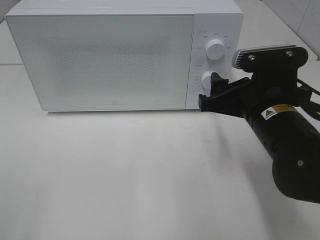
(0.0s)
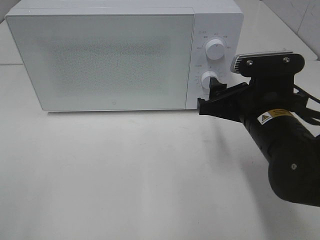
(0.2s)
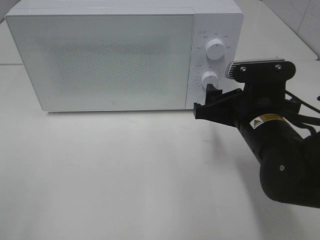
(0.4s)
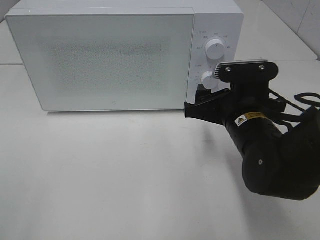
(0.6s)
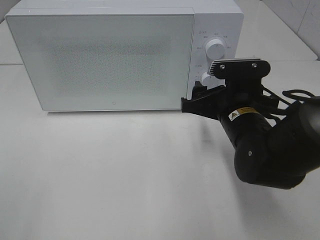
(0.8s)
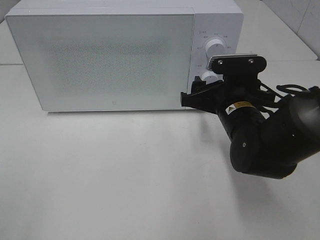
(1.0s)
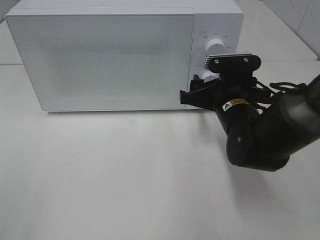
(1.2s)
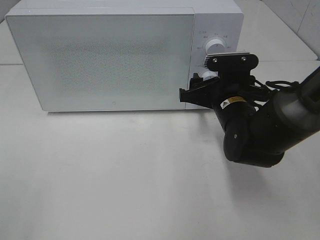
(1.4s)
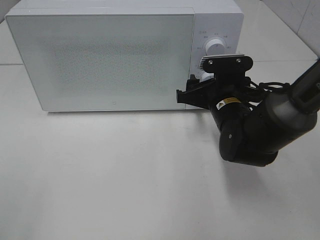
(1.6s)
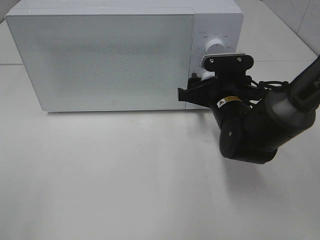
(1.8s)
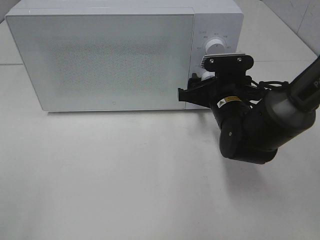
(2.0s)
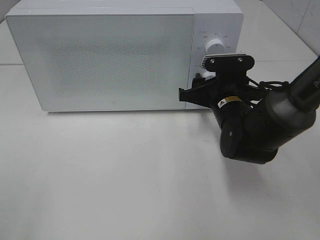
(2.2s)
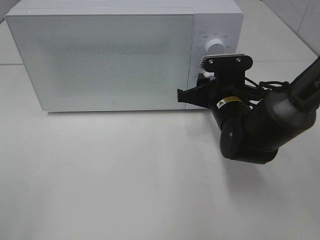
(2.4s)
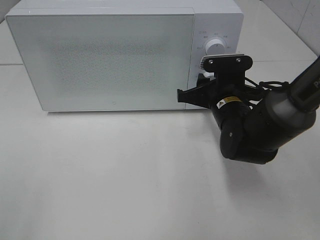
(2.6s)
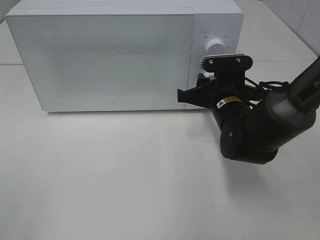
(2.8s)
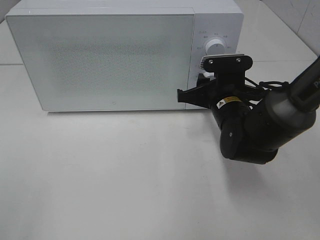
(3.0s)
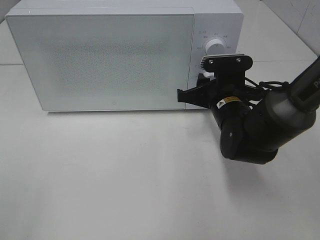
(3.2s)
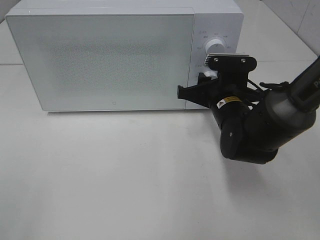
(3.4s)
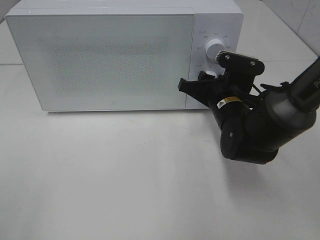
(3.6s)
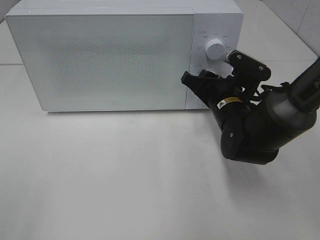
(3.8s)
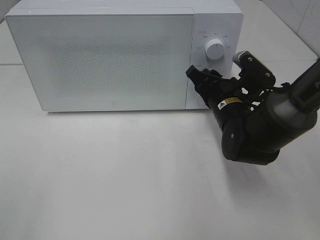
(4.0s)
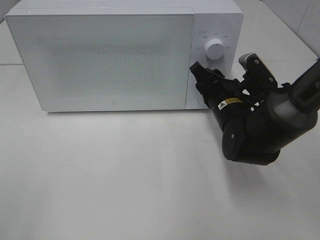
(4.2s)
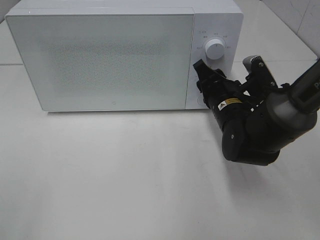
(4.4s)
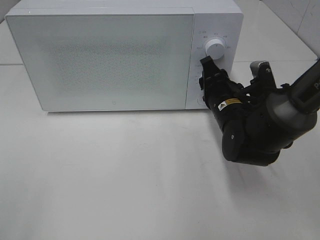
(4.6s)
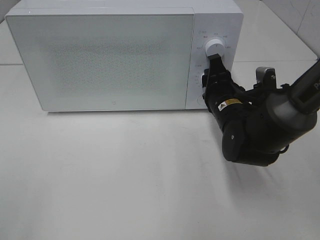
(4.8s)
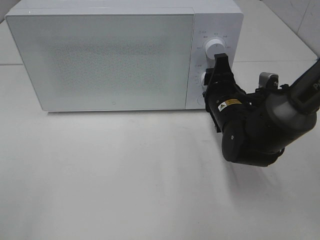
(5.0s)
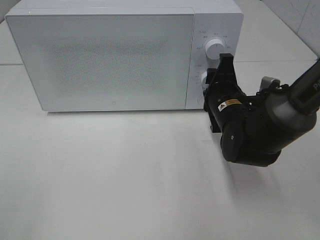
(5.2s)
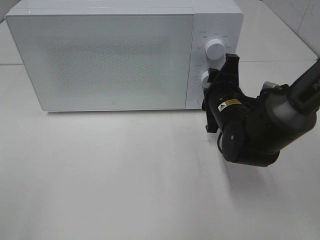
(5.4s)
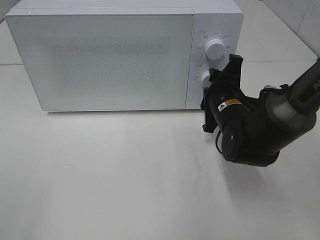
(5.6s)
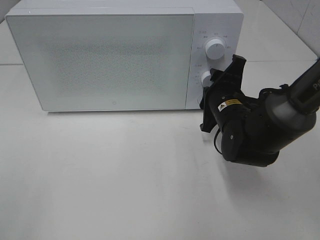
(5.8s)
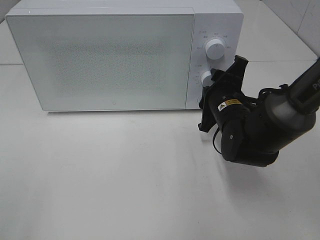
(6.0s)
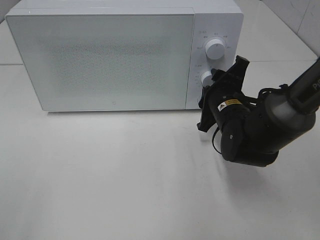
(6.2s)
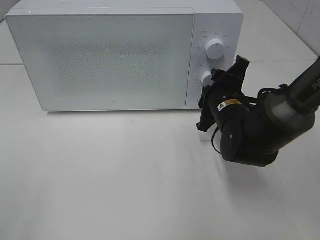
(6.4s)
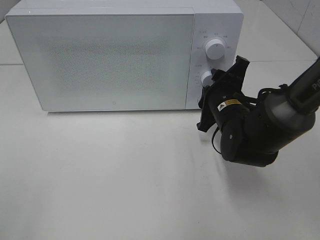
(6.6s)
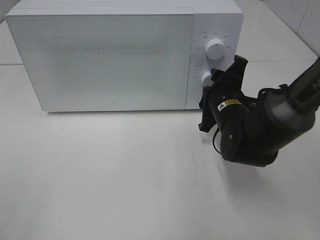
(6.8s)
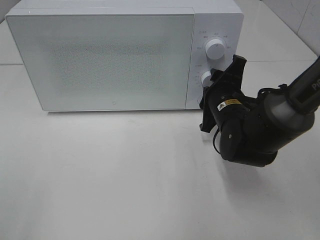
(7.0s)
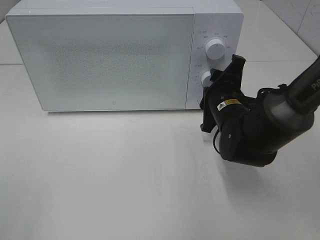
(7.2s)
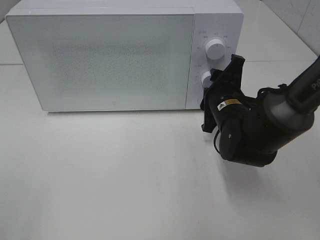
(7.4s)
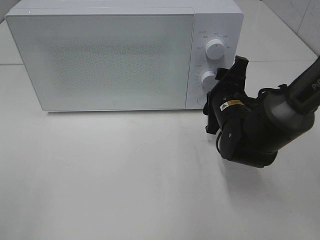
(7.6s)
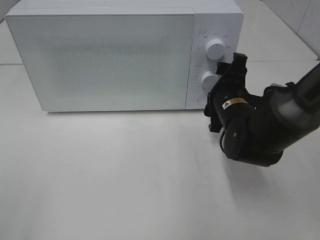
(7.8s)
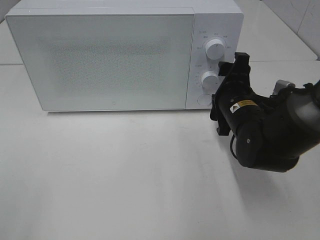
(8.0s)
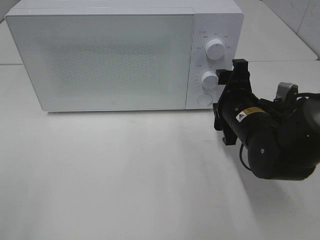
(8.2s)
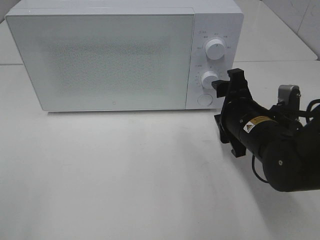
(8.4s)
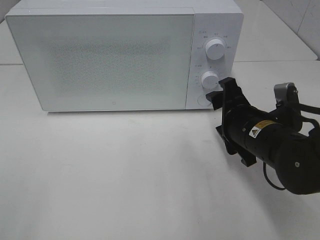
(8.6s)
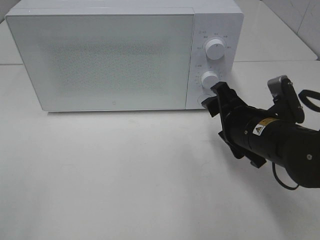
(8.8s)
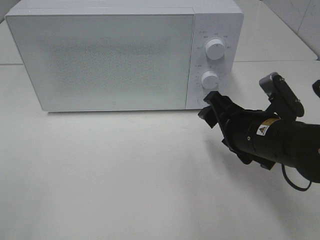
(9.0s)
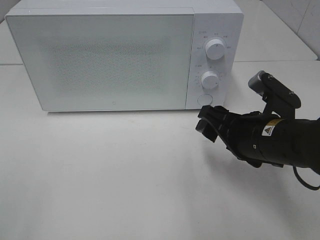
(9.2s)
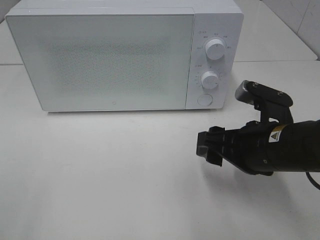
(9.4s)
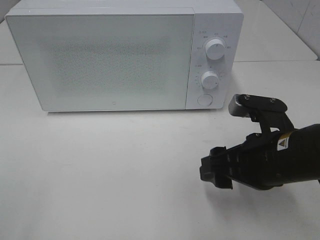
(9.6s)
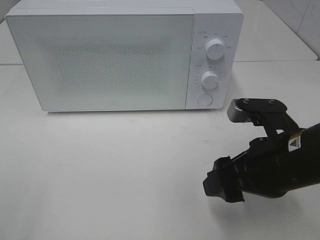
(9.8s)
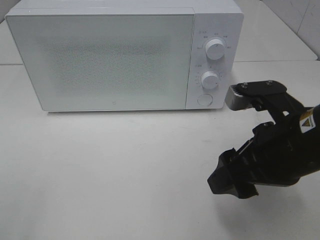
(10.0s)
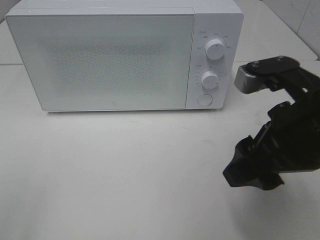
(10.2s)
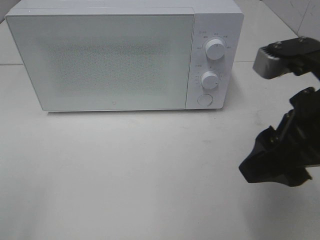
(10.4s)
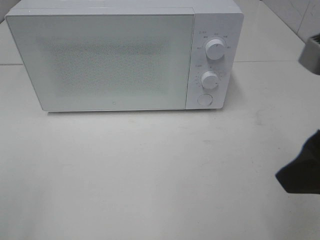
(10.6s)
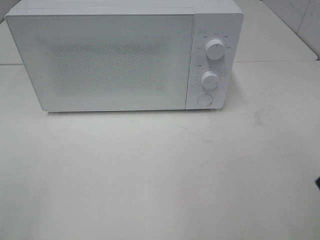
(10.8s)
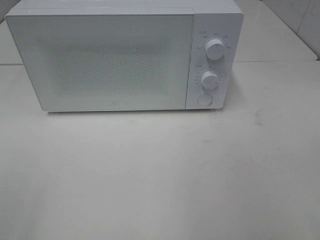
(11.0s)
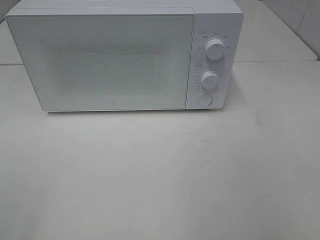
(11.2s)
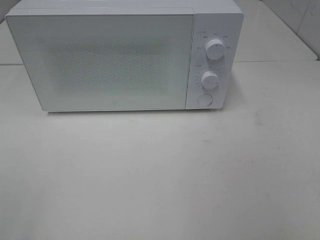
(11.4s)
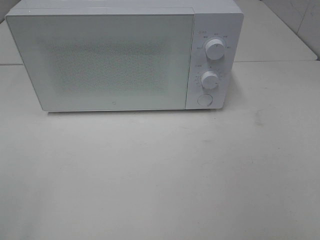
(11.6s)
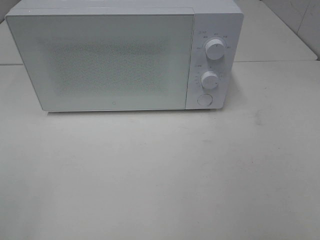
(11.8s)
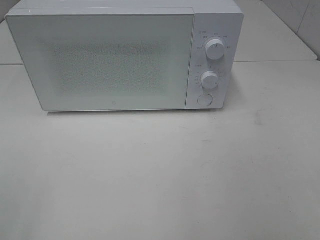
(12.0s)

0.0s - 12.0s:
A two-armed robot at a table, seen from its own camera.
Task of the whole recording: Heat the burger.
Step, 0.0s - 7.6s: Right hand: twist timer button.
0.0s - 1.6s: The right gripper is displaced forward and downward by about 10 cm.
1.6s - 3.0s: The right gripper closes its fingers.
6.0s - 7.6s: The grippers stay close to where they were, moving slightly.
7.6s - 9.0s: The right gripper goes some 10 cm backward.
9.0s - 10.4s: The right gripper is displaced upward and backward by approximately 15 cm.
10.4s - 12.0s: The right gripper shifts about 20 cm backward and to the right.

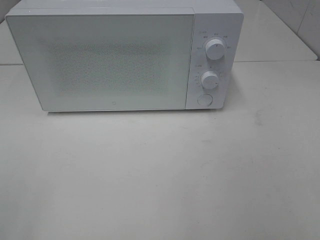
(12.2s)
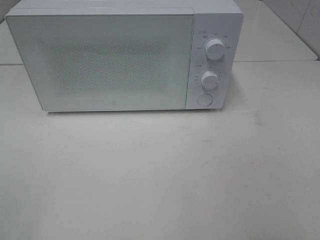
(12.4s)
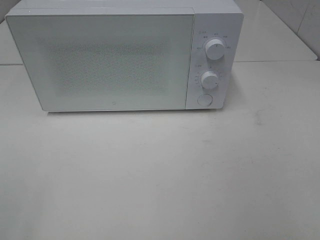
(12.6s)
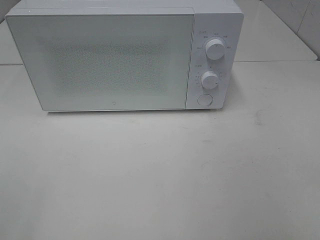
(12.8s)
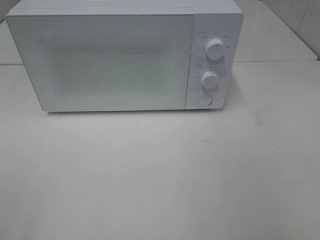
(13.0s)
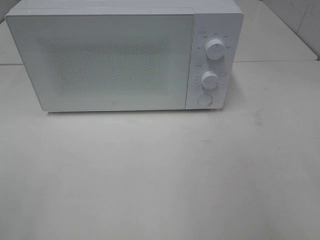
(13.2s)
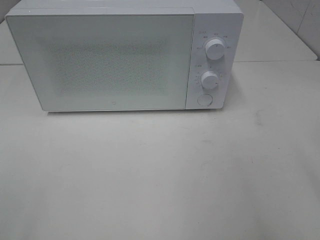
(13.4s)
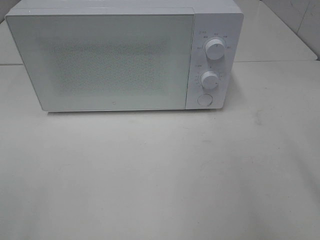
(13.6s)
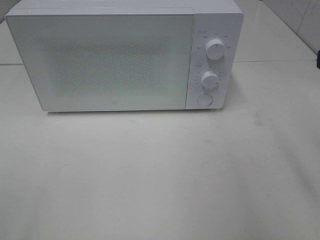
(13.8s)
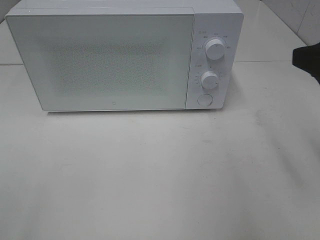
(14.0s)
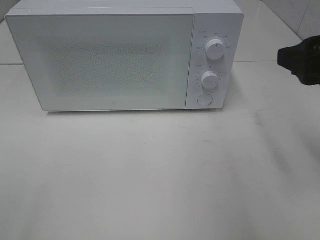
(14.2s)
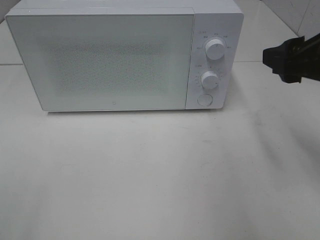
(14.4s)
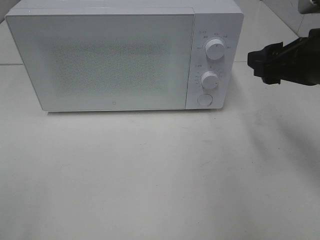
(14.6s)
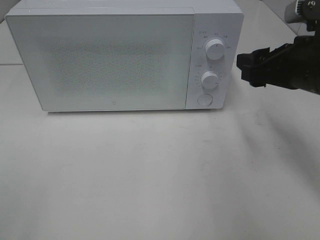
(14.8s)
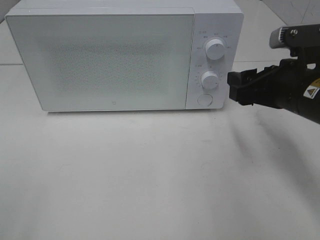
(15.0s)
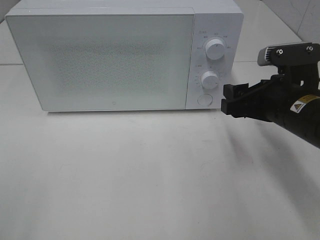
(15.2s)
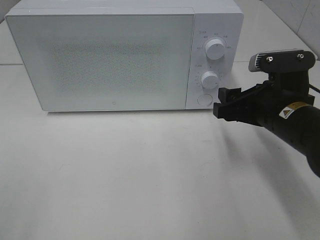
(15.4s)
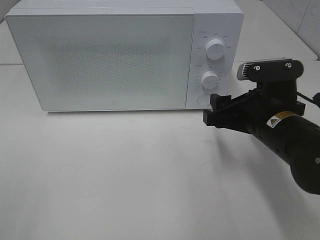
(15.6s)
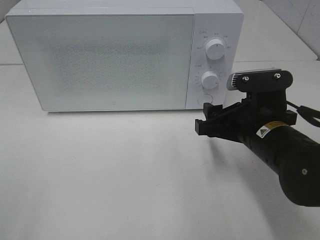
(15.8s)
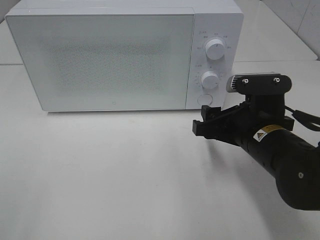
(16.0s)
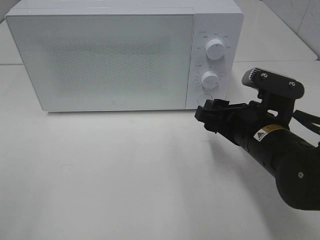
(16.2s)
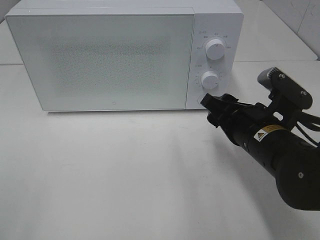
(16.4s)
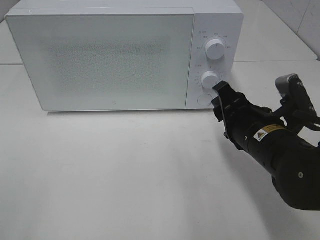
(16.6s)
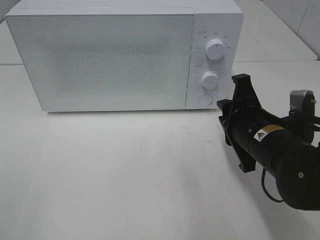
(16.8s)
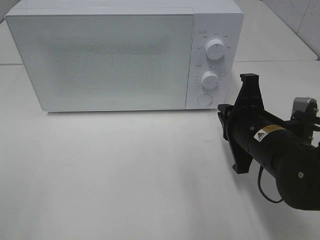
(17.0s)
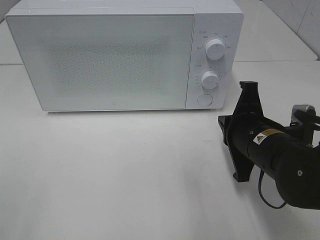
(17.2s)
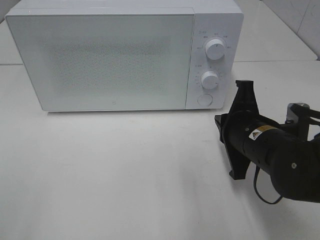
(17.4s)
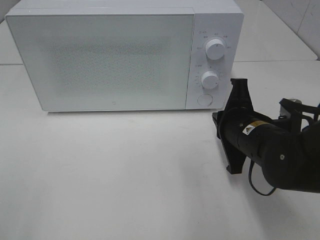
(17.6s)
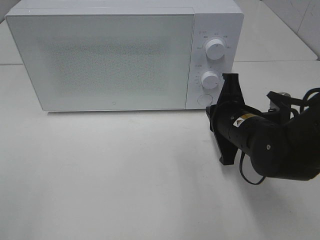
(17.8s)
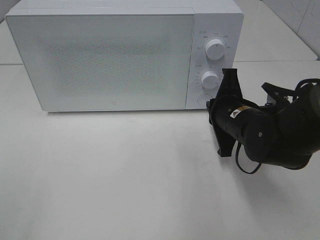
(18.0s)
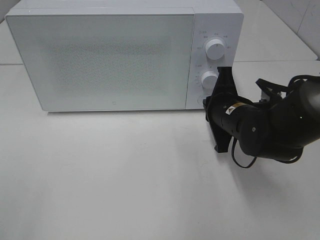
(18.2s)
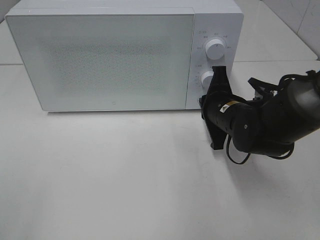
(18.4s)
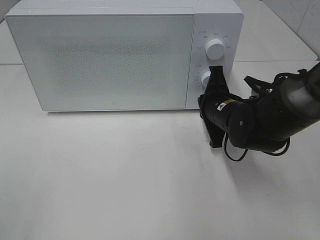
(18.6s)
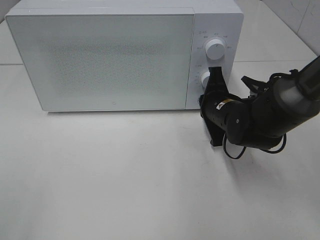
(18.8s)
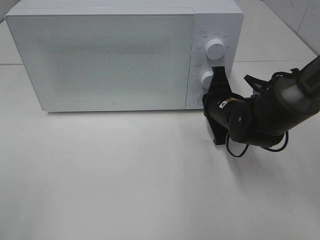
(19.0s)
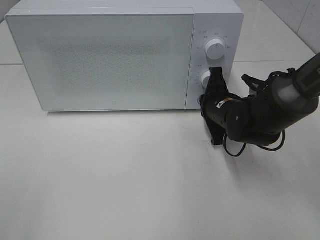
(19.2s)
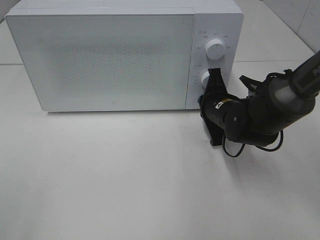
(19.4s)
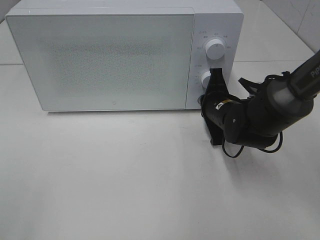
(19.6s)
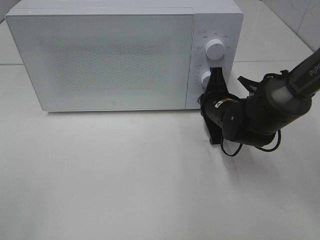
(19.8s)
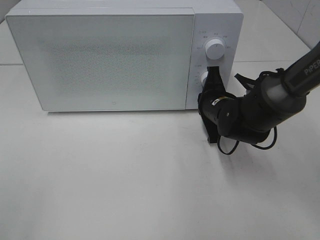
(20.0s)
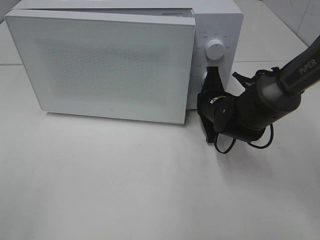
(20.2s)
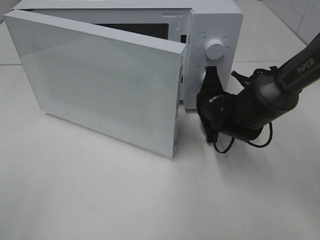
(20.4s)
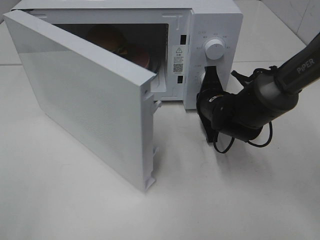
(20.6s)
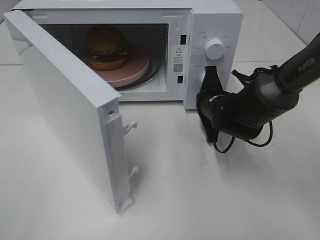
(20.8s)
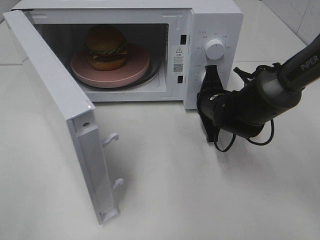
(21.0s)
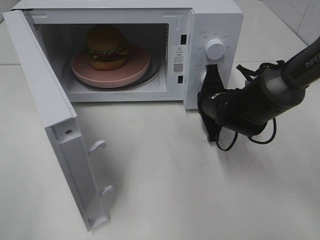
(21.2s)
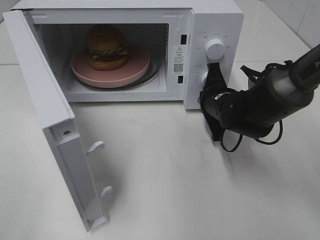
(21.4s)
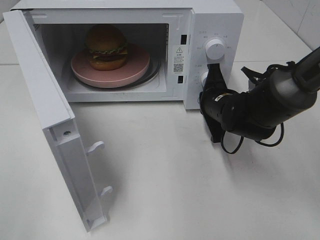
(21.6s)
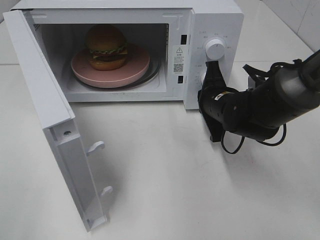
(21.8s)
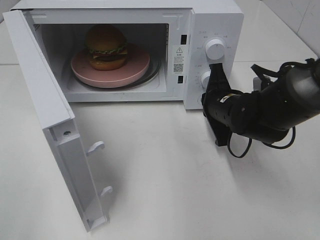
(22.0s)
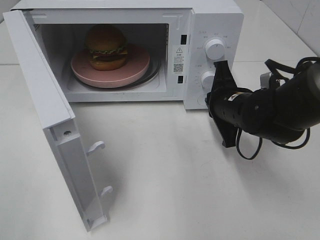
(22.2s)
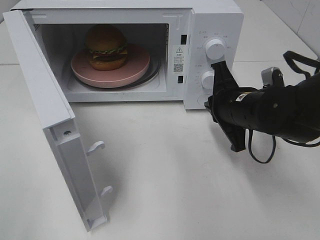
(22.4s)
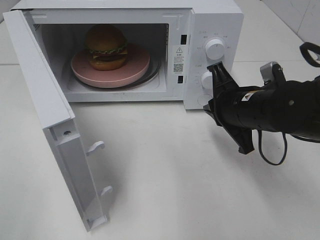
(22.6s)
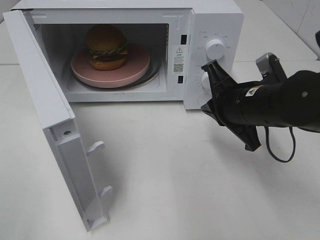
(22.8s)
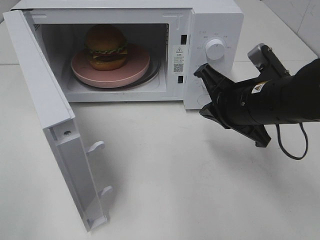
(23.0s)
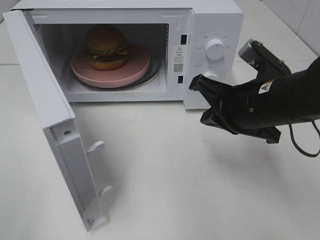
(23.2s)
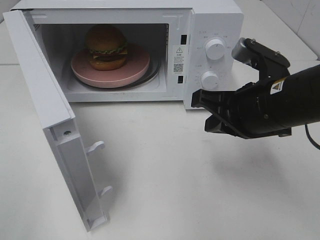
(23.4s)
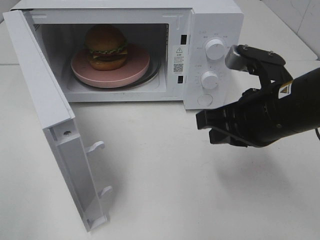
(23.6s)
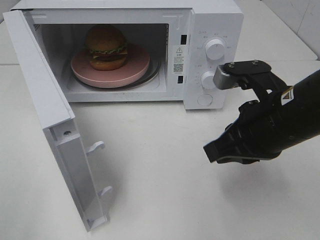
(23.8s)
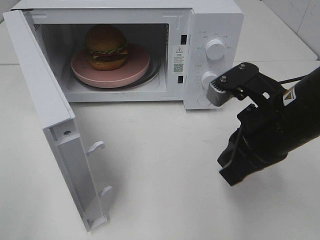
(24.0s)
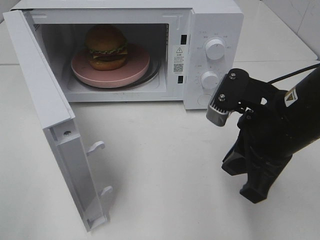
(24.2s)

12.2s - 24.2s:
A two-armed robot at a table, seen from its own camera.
Task of the whole recording: Heat the burger.
Step, 12.2s - 21.8s: Right hand: press the switch.
13.8s - 15.2s: The right gripper heads downward, forward and to the left, covering roughly 20 cm.
15.2s - 16.6s: The right gripper ends up some 5 cm from where it was.
16.6s - 18.2s: The right gripper is displaced forward by approximately 10 cm, and closes up.
18.2s - 19.8s: The right gripper changes place by roughly 5 cm.
21.2s - 22.6s: The right gripper heads backward and upward, covering some 10 cm.
22.6s - 24.2s: The right gripper moves backward and upward, roughly 10 cm.
